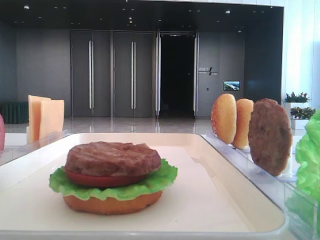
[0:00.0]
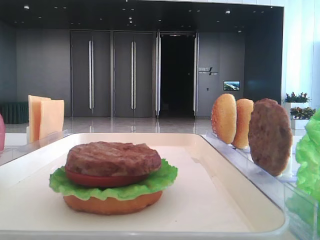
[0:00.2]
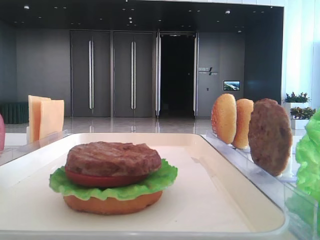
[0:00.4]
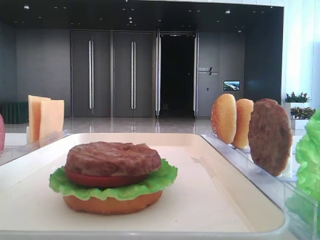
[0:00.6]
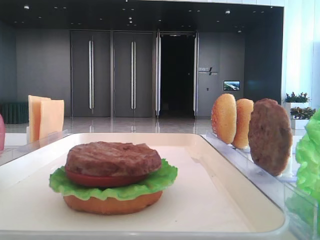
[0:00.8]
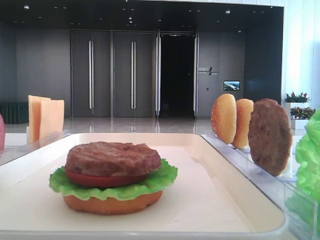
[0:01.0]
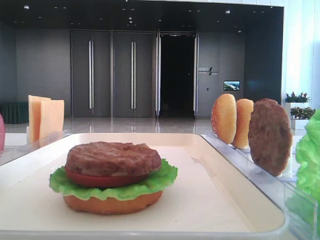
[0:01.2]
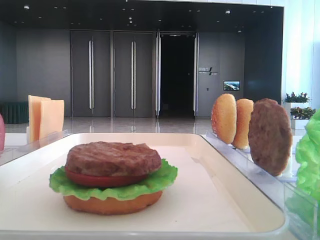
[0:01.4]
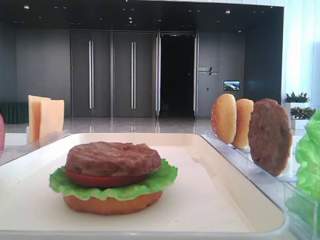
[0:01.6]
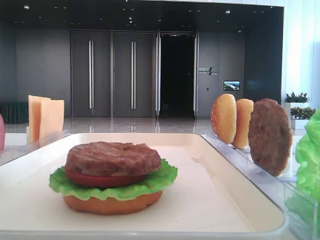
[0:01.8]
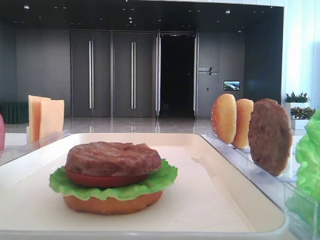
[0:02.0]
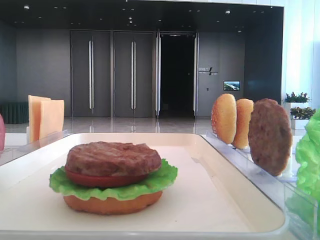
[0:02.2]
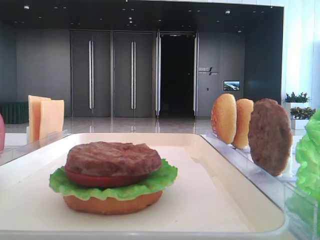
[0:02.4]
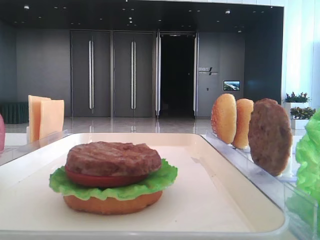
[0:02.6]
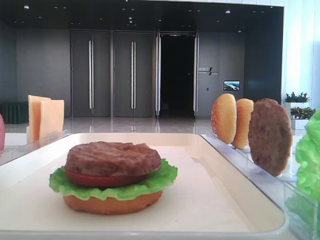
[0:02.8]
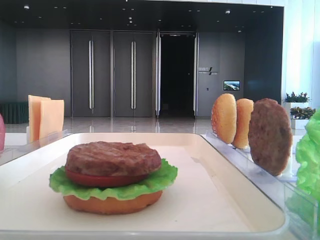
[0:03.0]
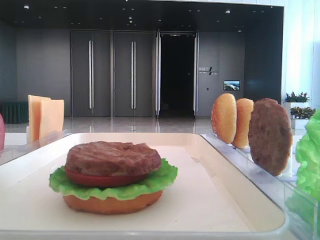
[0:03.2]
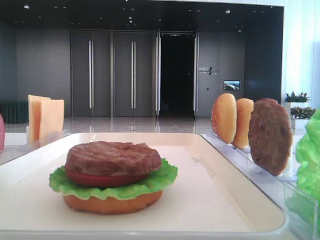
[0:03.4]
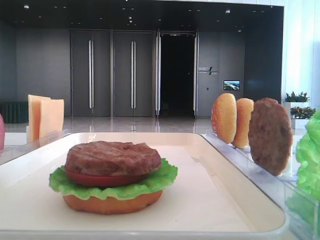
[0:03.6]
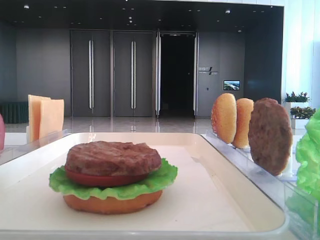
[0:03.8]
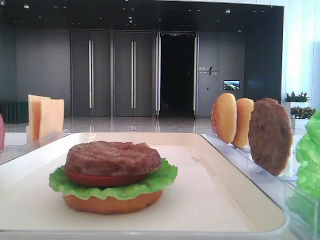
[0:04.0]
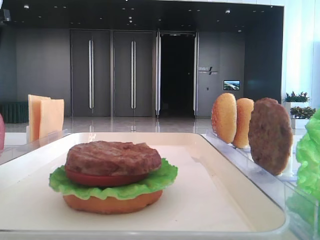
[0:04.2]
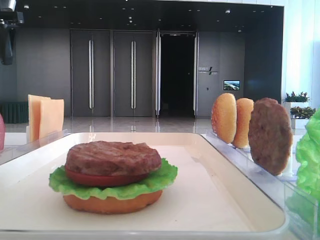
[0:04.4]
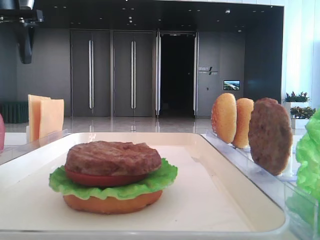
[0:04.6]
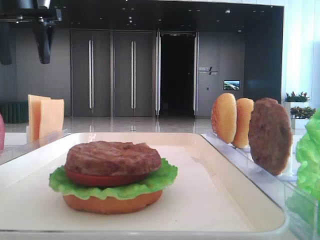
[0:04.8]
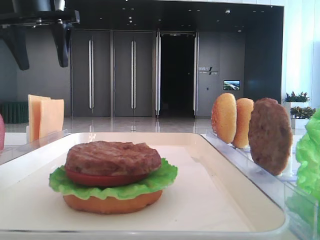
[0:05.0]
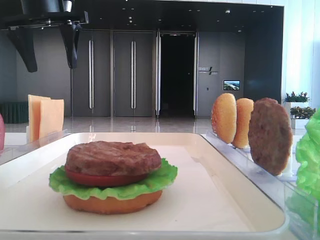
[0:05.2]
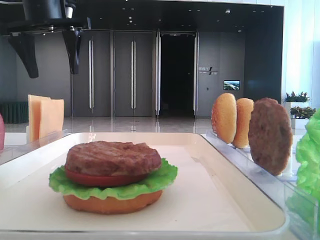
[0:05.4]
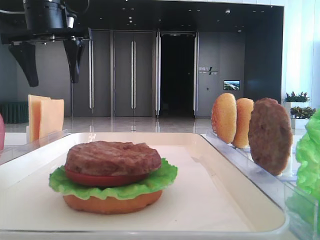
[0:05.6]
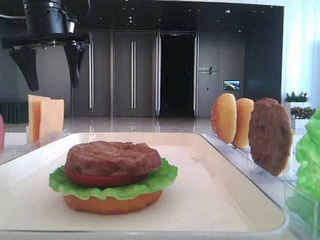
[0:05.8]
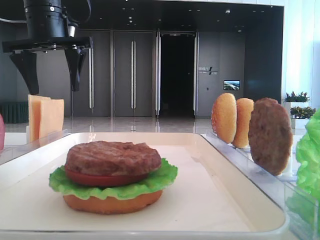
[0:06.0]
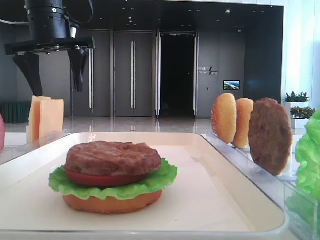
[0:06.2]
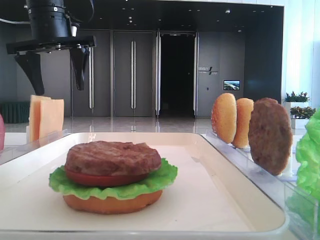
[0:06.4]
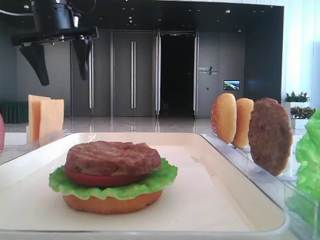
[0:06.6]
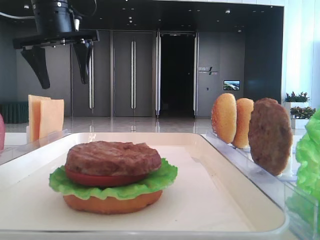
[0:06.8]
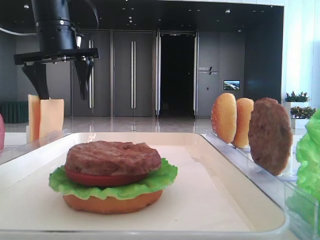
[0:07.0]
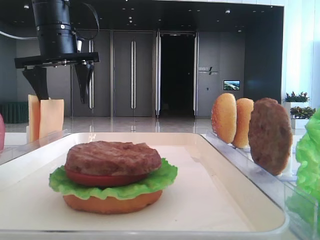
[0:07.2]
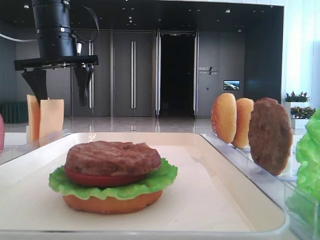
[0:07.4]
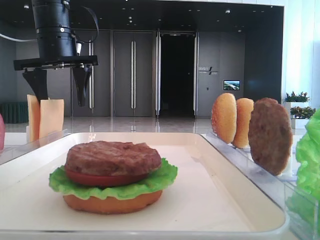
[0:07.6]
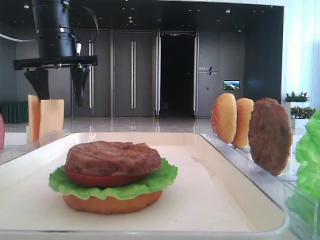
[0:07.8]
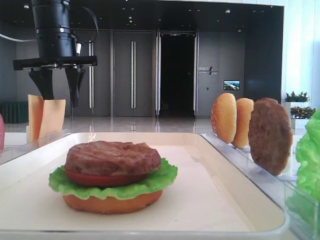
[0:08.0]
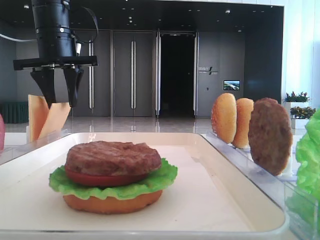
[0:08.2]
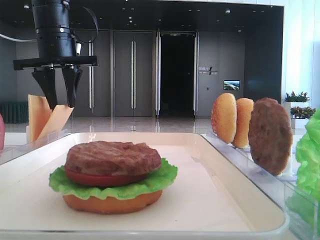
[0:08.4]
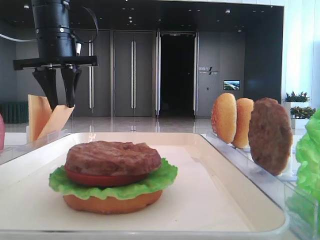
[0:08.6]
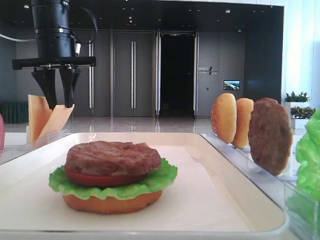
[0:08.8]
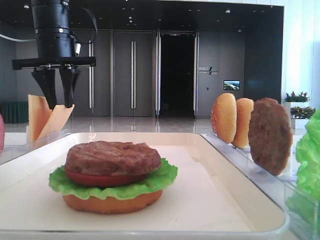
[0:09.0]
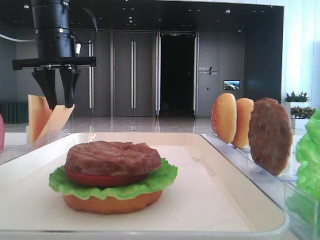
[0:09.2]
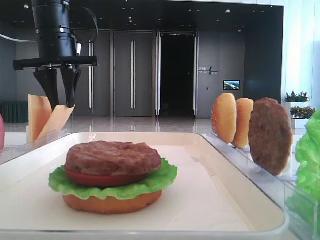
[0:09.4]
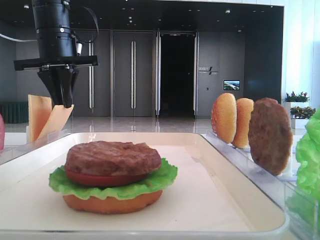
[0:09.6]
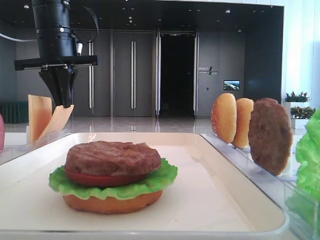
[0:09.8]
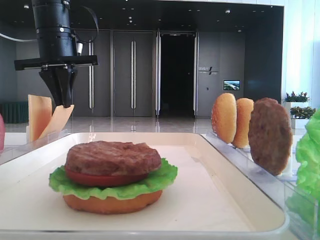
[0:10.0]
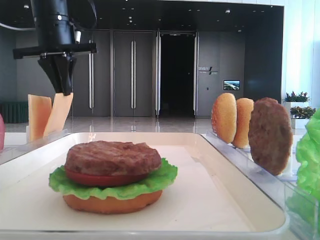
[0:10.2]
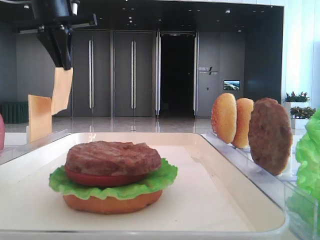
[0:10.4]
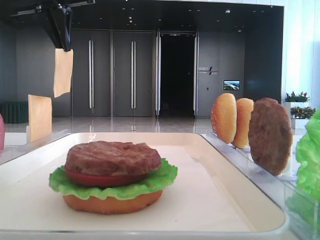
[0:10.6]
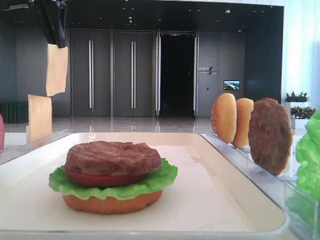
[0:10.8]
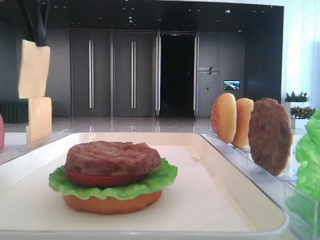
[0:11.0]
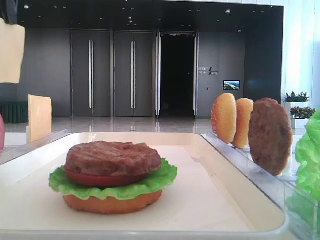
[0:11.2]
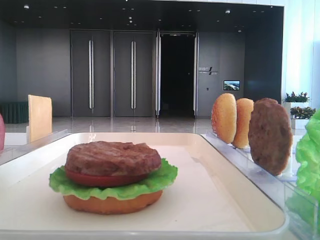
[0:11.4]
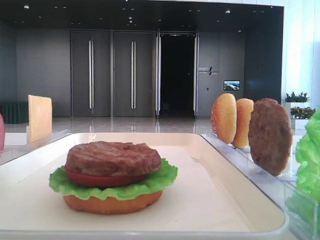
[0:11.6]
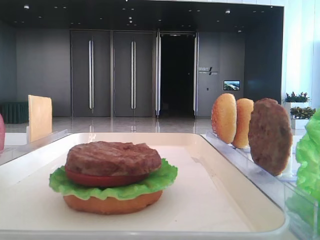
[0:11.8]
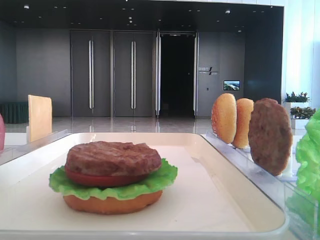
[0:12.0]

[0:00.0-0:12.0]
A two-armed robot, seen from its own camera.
Step, 0:00.0 to 0:09.8: Pick up the cheese slice with the left hand.
0:03.0 to 0:04.4: The left gripper is displaced forward by some 30 cm.
0:04.4 to 0:06.0: The left gripper travels to the right by about 10 cm.
0:06.0 to 0:07.6: The grippers make only small movements.
0:07.6 to 0:09.0: The left gripper closes its fingers.
0:09.0 to 0:10.4: The left gripper goes approximately 5 cm upward.
0:10.4 to 0:12.0: The left gripper travels backward by some 25 cm.

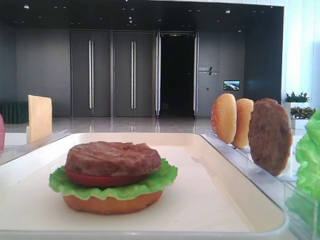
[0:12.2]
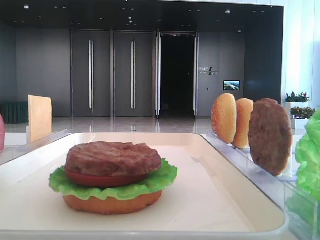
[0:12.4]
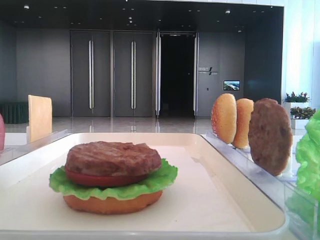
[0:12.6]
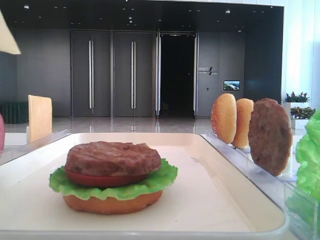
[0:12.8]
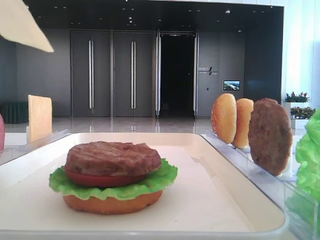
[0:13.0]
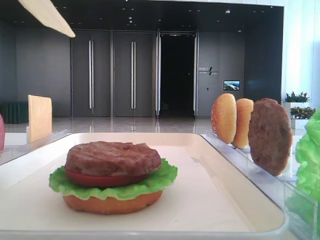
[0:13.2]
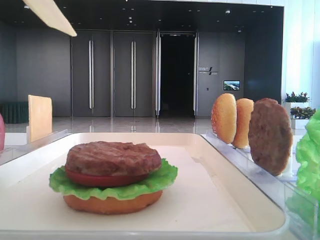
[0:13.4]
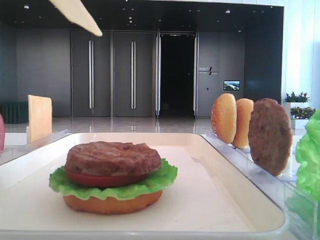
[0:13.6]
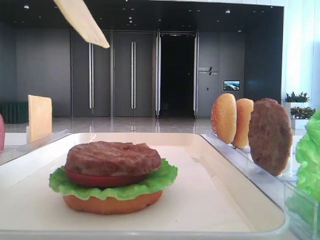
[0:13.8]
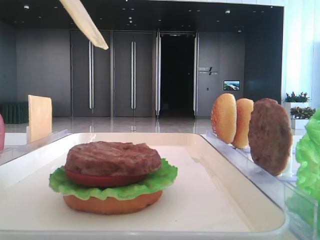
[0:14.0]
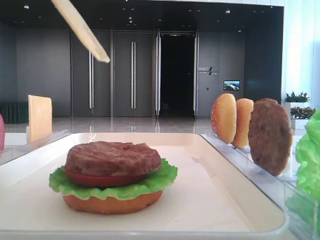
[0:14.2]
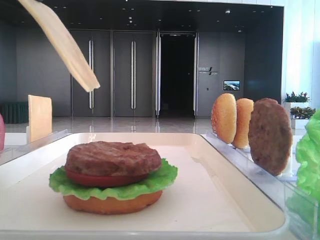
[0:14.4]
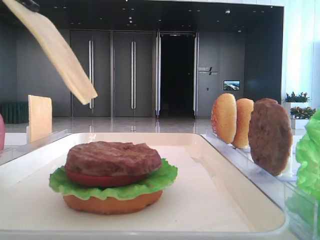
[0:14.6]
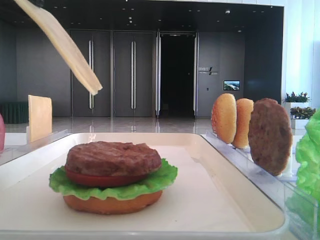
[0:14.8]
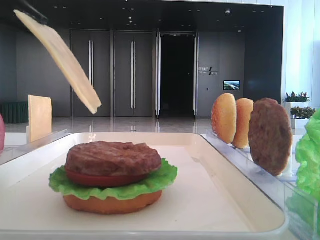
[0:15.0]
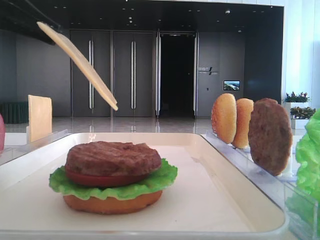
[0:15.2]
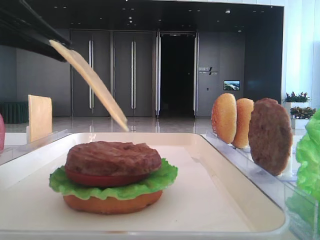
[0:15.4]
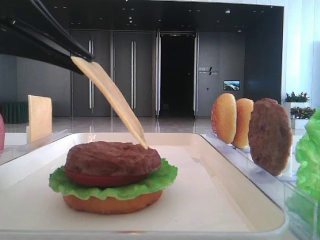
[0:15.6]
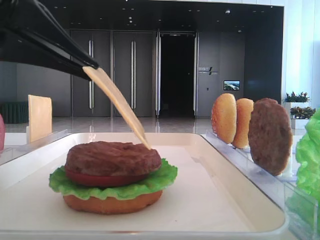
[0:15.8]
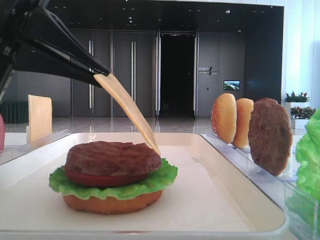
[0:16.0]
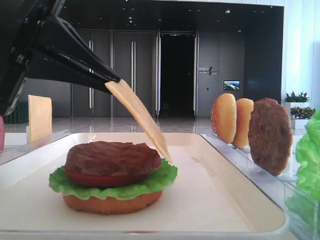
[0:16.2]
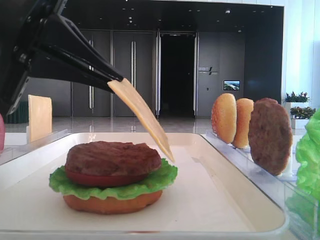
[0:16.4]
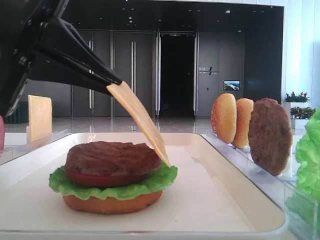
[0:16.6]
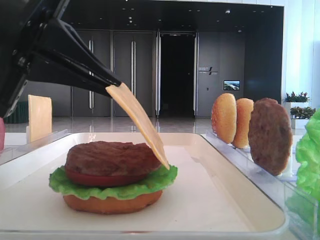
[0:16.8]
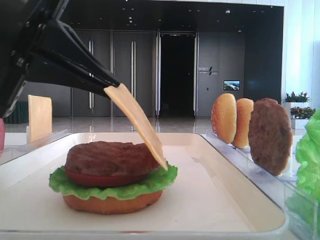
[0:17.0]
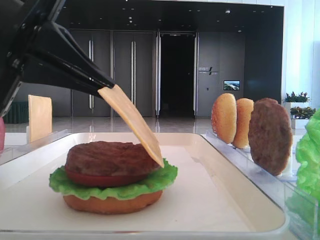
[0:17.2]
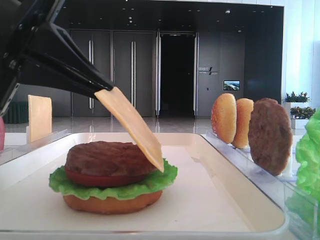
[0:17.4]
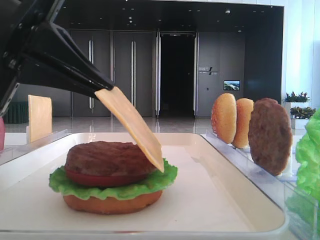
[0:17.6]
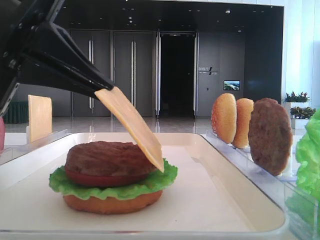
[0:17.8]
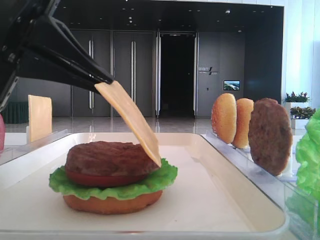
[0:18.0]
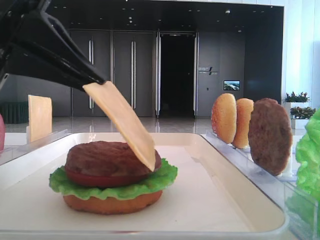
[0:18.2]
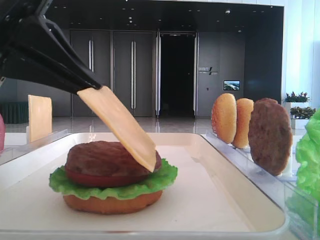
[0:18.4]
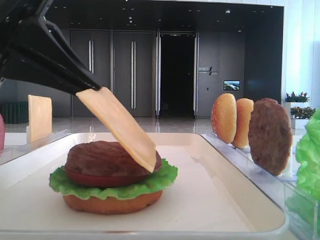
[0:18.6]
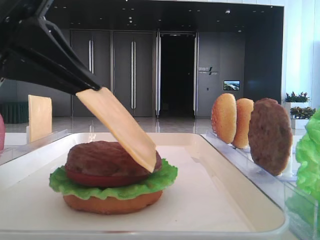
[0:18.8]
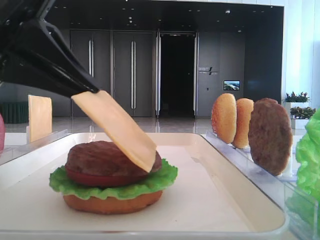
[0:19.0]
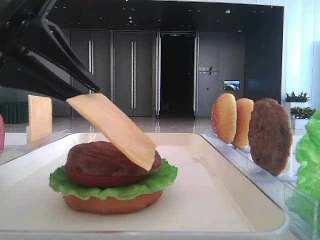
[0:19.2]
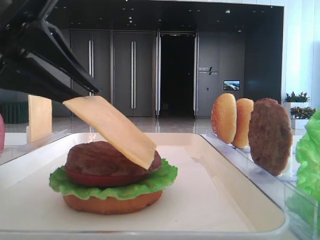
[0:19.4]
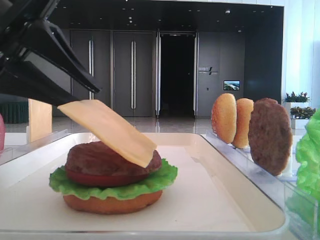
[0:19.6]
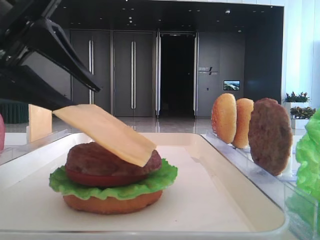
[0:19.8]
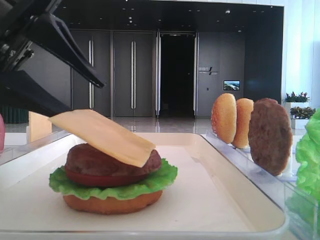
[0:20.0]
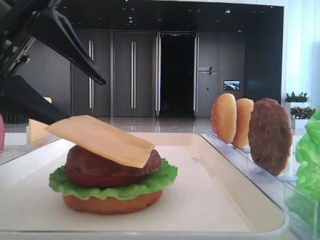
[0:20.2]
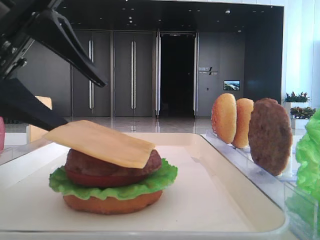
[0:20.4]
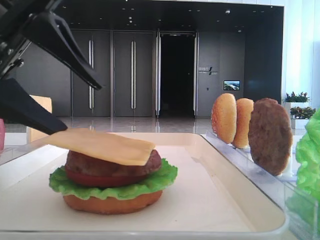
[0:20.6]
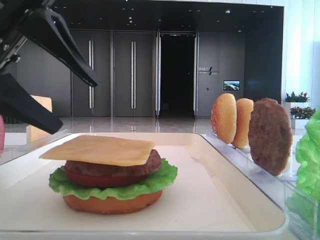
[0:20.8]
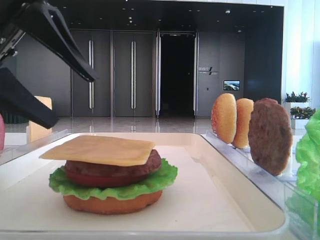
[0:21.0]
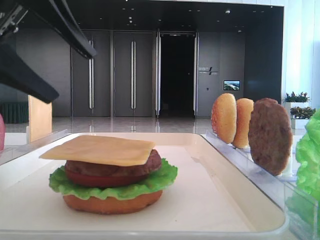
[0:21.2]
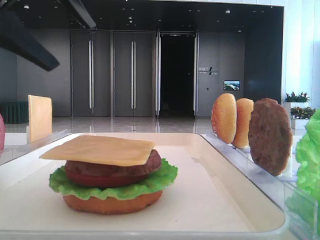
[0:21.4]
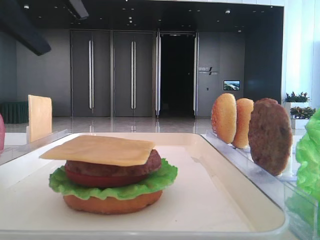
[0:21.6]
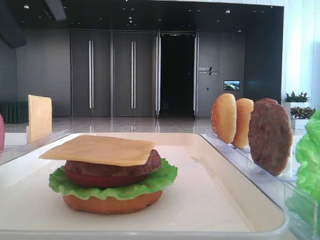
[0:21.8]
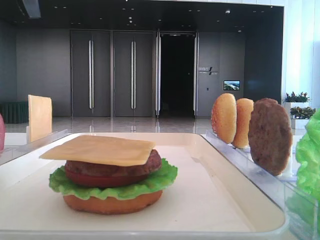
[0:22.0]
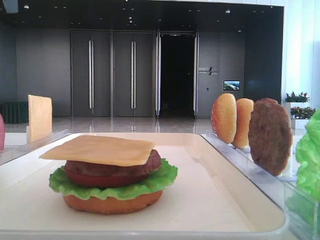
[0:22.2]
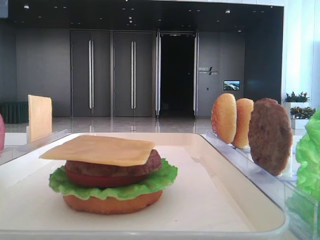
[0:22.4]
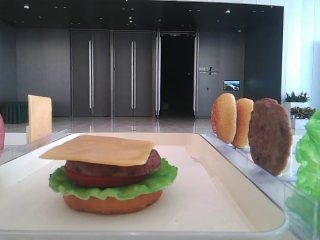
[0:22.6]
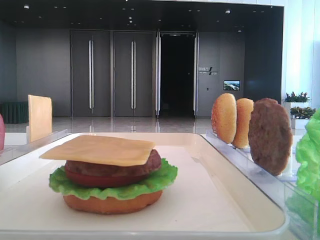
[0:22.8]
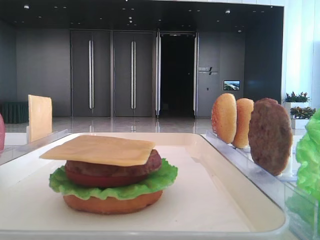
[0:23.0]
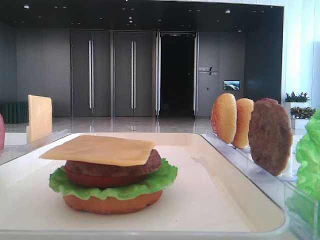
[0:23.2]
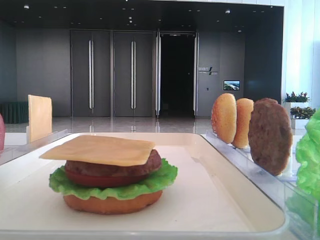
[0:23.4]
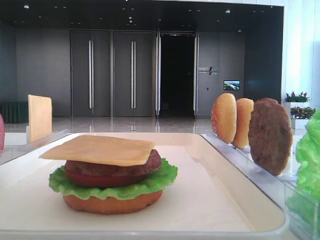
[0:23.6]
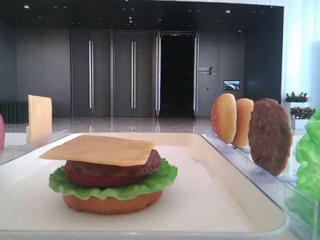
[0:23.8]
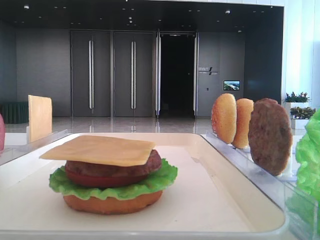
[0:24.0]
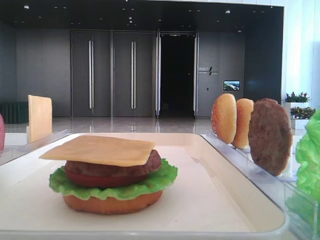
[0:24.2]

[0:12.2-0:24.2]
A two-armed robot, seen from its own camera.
Step, 0:12.2 to 0:20.6: Place the cheese slice on the patty with the left hand.
0:12.2 to 0:13.8: The left gripper moves downward, roughly 5 cm.
0:13.8 to 0:15.2: The left gripper travels downward by about 5 cm.
0:15.2 to 0:16.6: The left gripper heads to the right, covering about 5 cm.
0:16.6 to 0:18.2: Both grippers stay about where they are.
0:18.2 to 0:19.8: The left gripper opens.
0:19.8 to 0:21.2: The left gripper opens its fingers.
0:21.2 to 0:22.6: The left gripper shifts approximately 15 cm upward and to the left.
